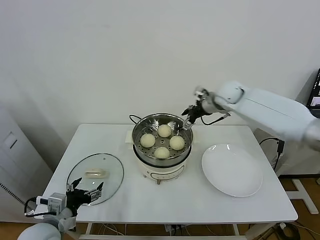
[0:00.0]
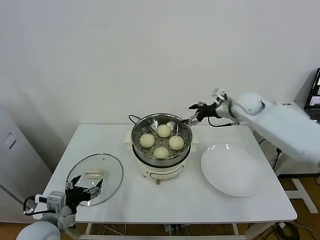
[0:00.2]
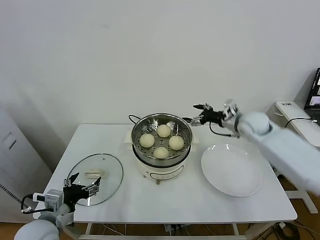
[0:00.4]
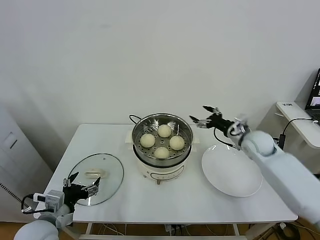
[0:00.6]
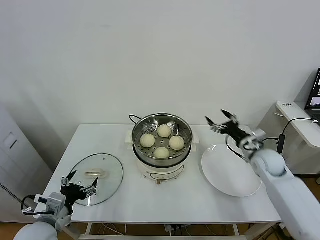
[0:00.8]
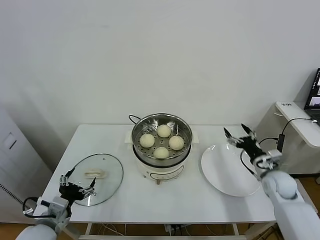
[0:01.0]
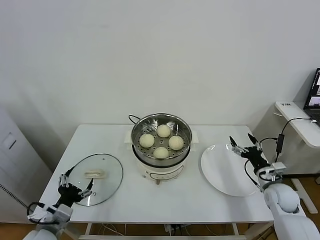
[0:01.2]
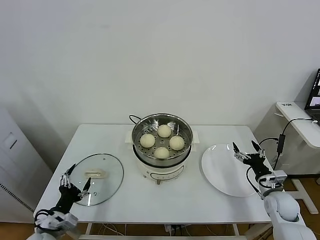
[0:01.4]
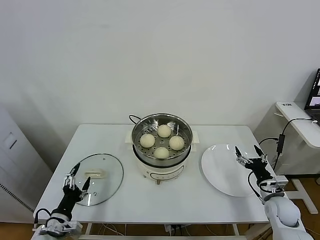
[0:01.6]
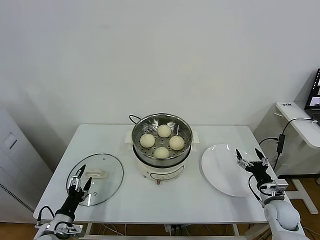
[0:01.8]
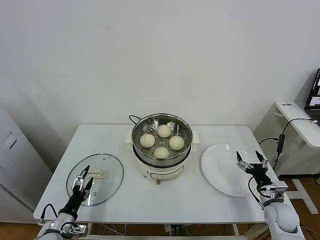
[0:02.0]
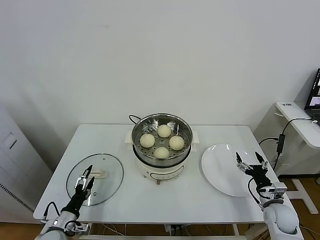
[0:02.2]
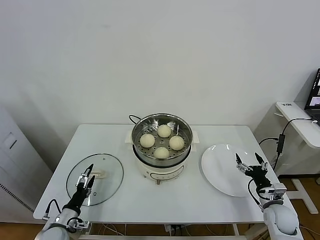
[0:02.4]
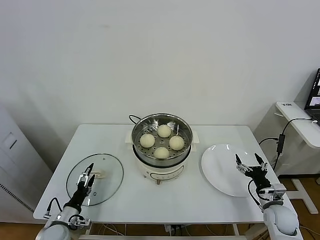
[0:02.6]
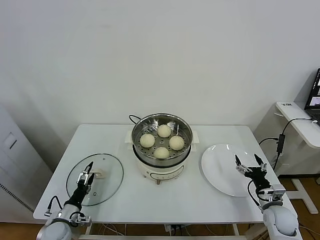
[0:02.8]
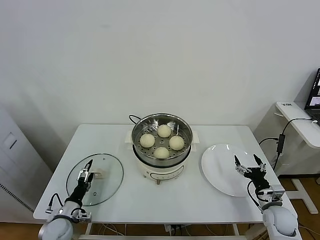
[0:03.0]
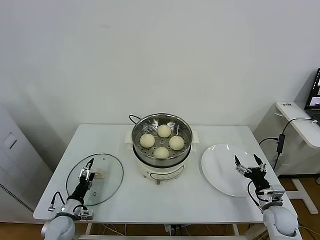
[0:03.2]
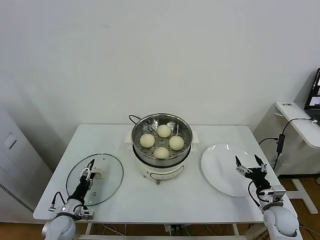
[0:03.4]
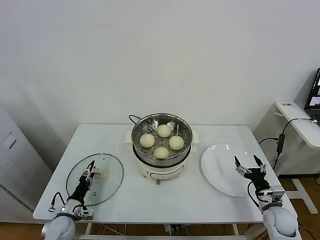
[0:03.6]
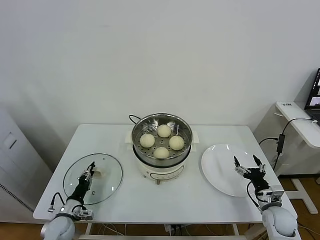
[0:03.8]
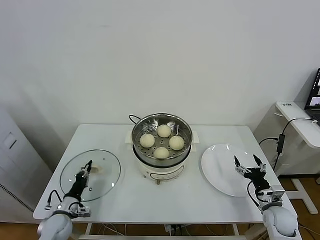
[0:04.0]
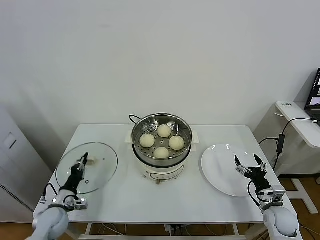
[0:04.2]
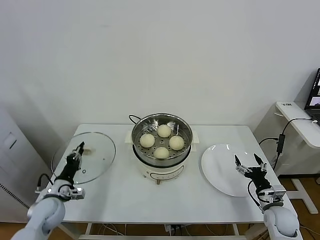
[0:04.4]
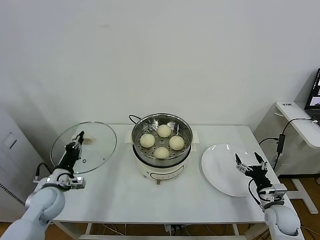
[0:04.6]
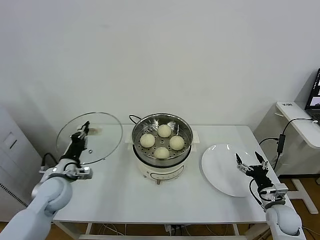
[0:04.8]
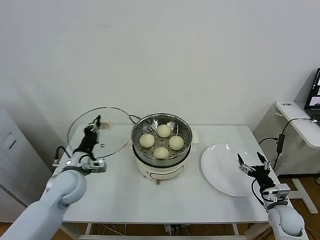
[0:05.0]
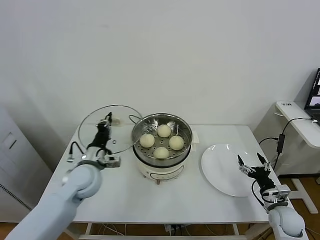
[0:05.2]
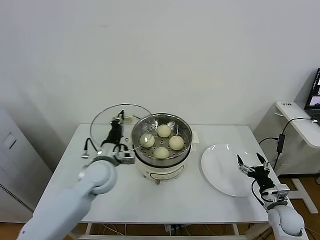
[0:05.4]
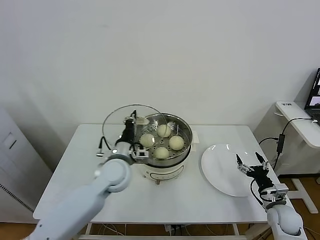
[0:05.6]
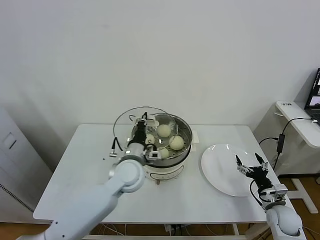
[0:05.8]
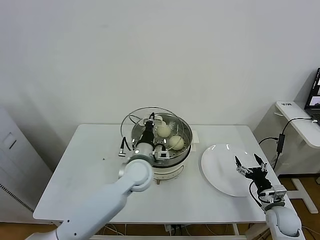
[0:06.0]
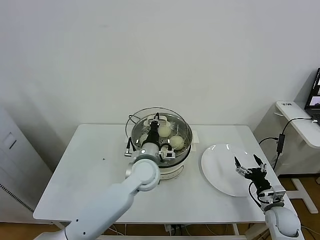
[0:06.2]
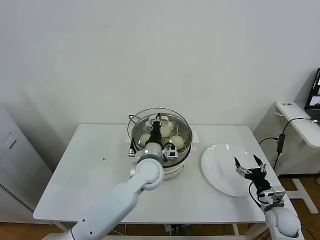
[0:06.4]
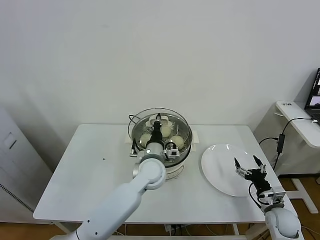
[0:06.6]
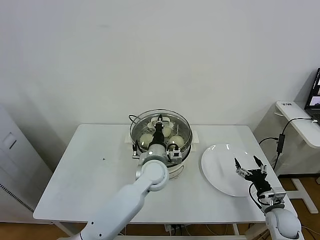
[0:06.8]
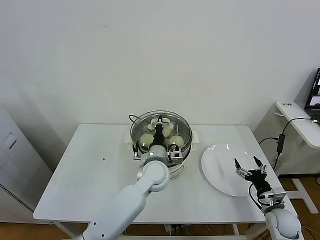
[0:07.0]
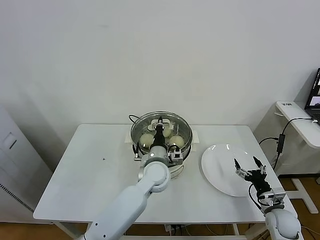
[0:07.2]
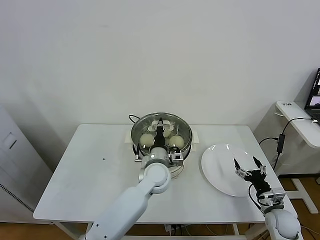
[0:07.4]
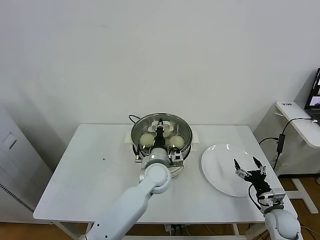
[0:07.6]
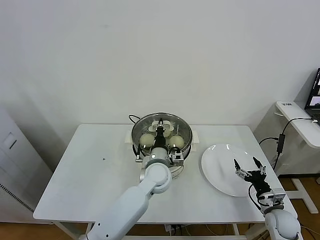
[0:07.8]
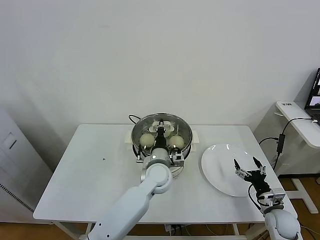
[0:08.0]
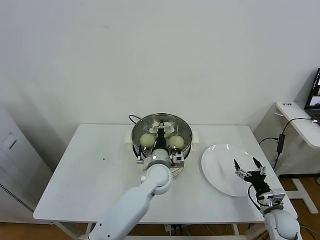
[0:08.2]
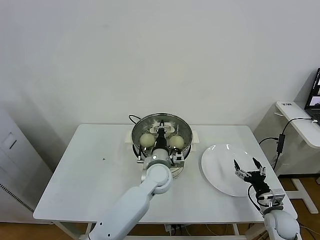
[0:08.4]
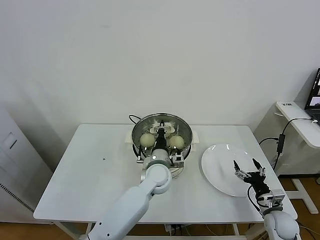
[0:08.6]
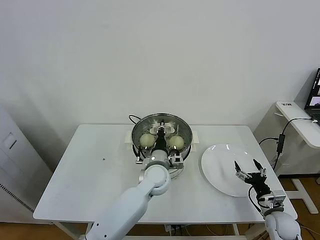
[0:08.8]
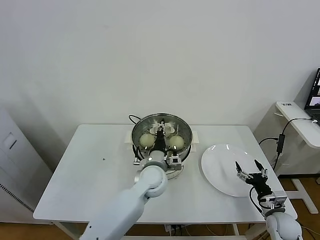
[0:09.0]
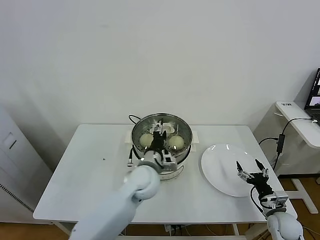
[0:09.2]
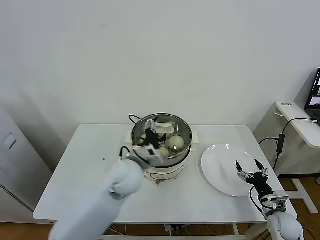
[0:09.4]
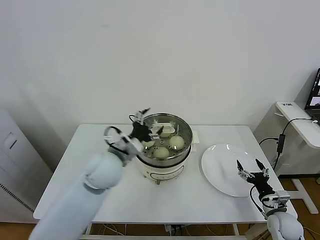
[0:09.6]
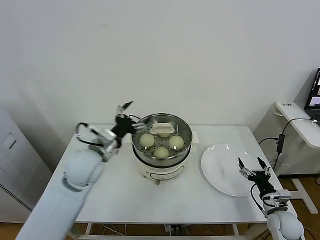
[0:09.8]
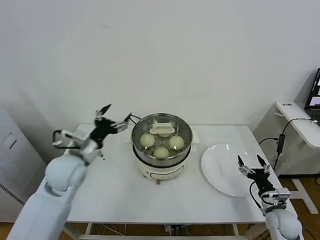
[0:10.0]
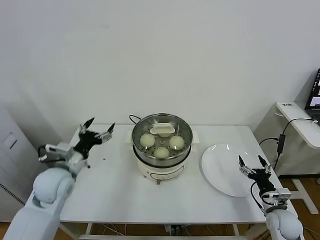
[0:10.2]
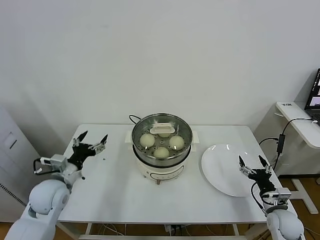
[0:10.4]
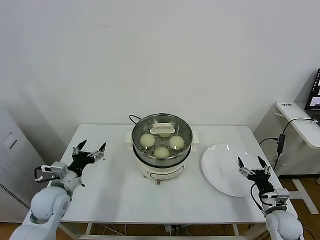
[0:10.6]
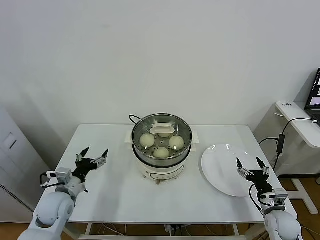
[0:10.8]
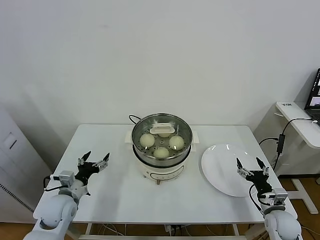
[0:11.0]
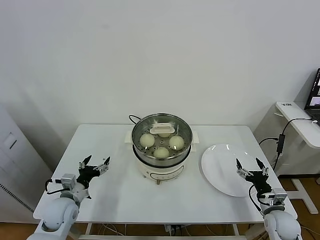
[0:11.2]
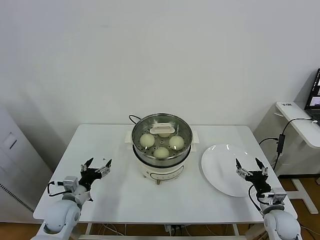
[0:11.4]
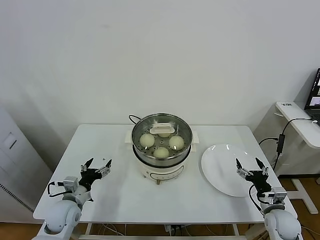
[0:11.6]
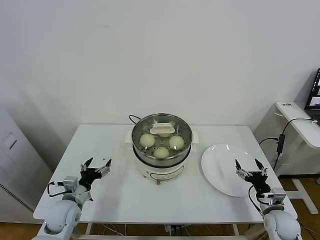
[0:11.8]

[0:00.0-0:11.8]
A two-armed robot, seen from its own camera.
Task of the whole recording: take steamed baozi put them in steamer.
Step, 0:00.0 to 0:04.0: Grasp the pot lid with left gripper.
Step, 0:04.2 to 0:09.4: Place the pot lid on the steamer with left gripper.
0:00.0 to 0:01.4: The right gripper moves downward, backward and to the right, approximately 40 cm. The left gripper travels downward by about 5 cm.
0:01.4 to 0:03.0: The left gripper is displaced downward and forward by some 15 cm. Meanwhile the right gripper shifts by some 5 cm.
0:03.0 to 0:04.4: The left gripper goes about 10 cm upward, and closes up.
0:04.4 to 0:06.0: The left gripper shifts roughly 30 cm to the right and upward.
0:06.0 to 0:07.4: The left gripper heads to the right, covering approximately 5 cm.
0:07.4 to 0:08.8: There are only small adjustments of the grippers.
0:08.8 to 0:10.4: The left gripper travels to the left by about 30 cm, and opens its fingers.
0:10.4 to 0:11.8: The left gripper shifts about 10 cm downward.

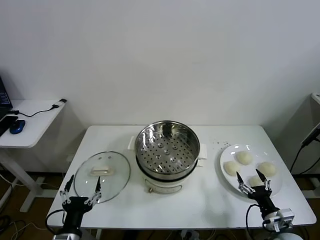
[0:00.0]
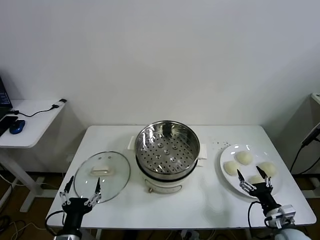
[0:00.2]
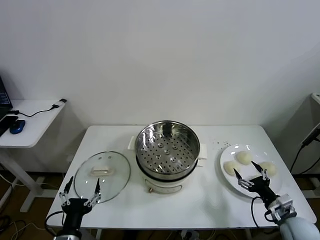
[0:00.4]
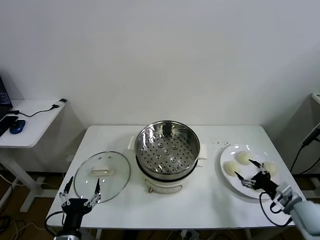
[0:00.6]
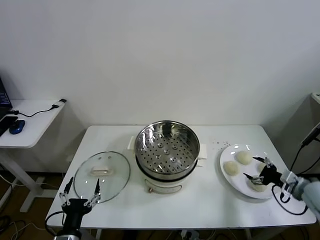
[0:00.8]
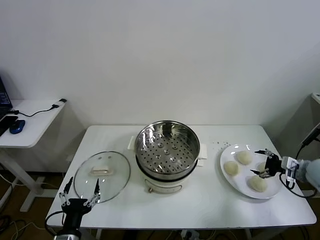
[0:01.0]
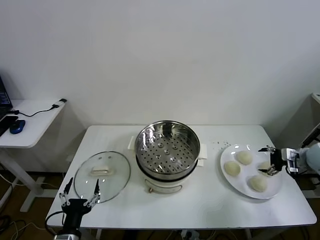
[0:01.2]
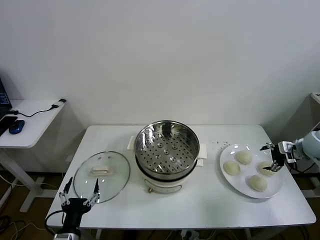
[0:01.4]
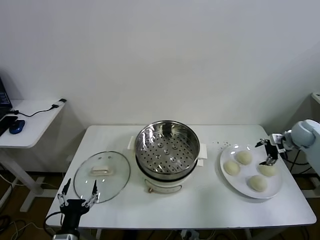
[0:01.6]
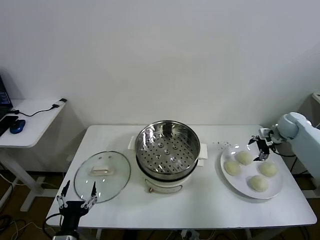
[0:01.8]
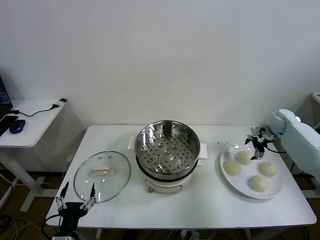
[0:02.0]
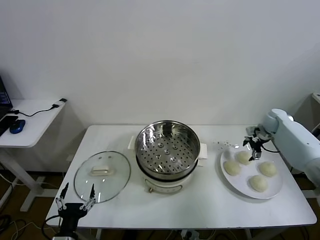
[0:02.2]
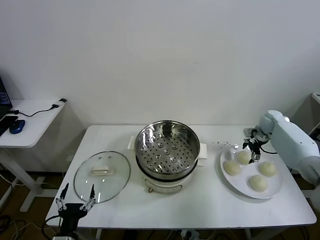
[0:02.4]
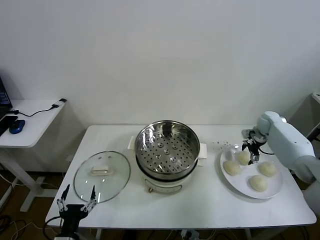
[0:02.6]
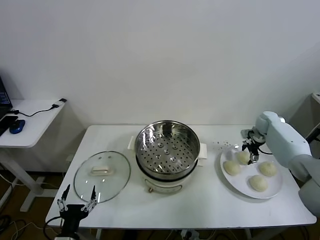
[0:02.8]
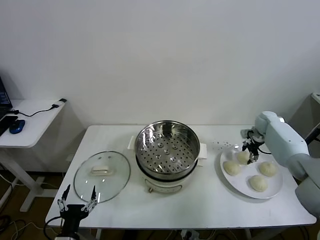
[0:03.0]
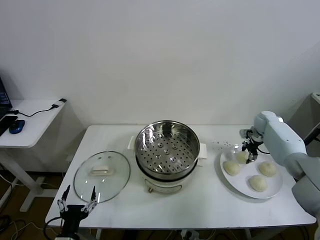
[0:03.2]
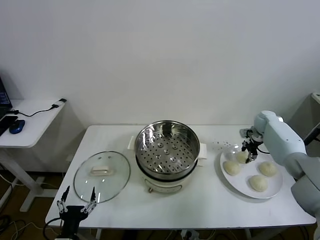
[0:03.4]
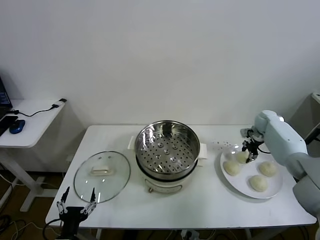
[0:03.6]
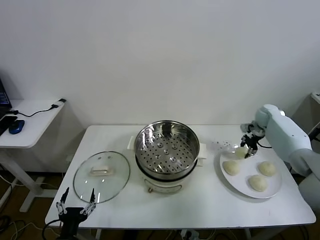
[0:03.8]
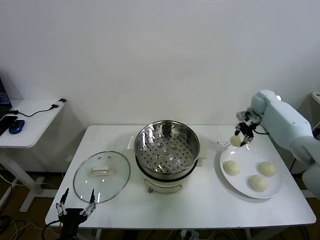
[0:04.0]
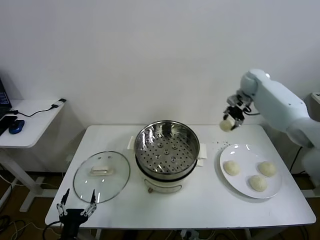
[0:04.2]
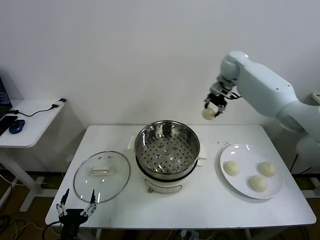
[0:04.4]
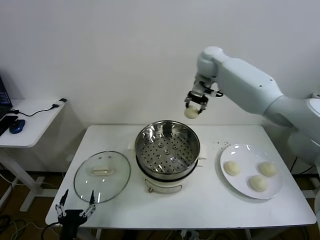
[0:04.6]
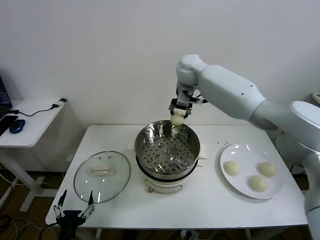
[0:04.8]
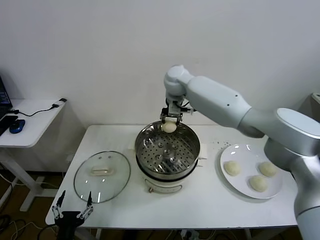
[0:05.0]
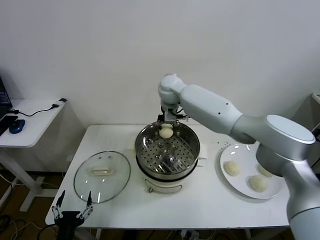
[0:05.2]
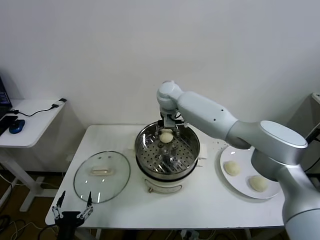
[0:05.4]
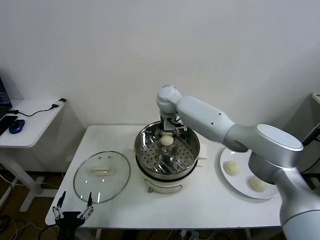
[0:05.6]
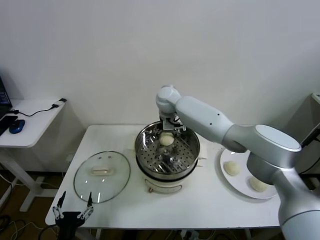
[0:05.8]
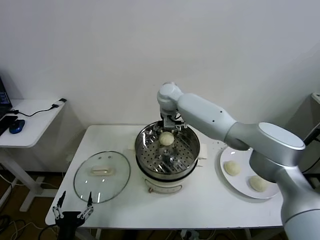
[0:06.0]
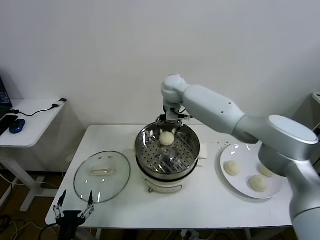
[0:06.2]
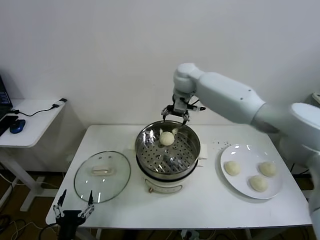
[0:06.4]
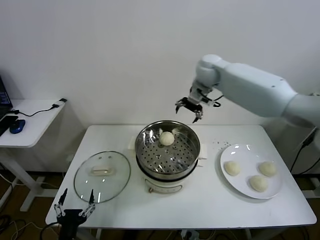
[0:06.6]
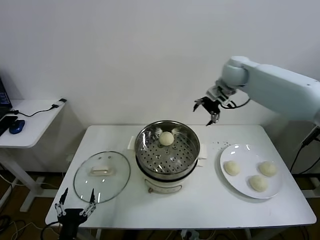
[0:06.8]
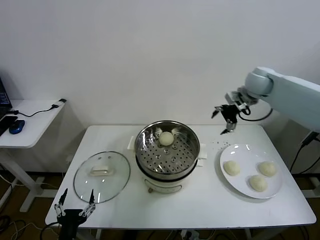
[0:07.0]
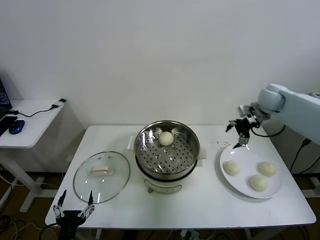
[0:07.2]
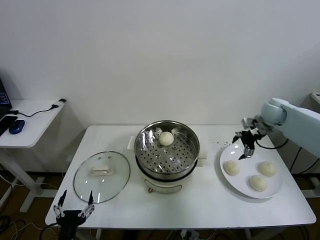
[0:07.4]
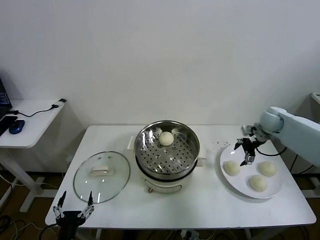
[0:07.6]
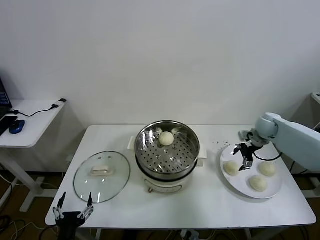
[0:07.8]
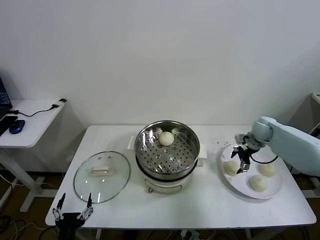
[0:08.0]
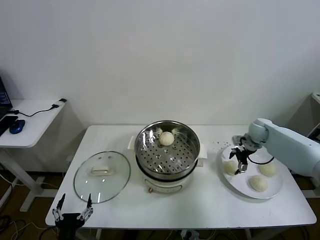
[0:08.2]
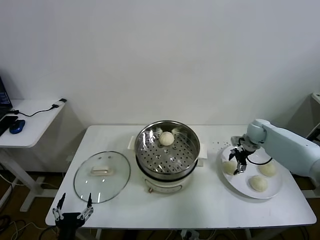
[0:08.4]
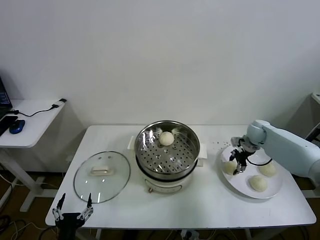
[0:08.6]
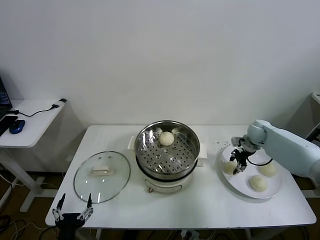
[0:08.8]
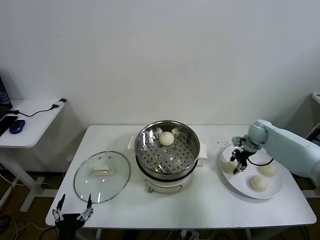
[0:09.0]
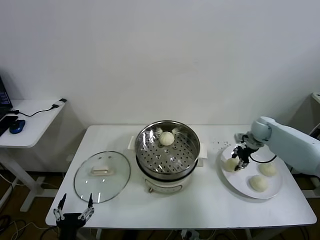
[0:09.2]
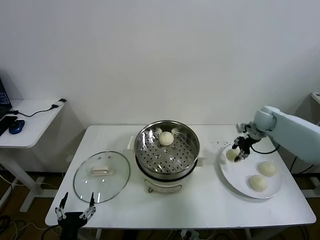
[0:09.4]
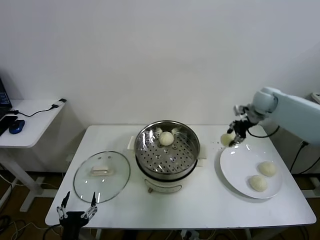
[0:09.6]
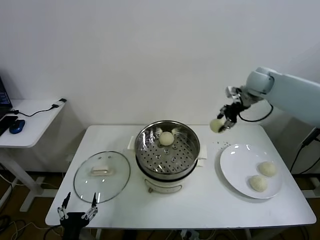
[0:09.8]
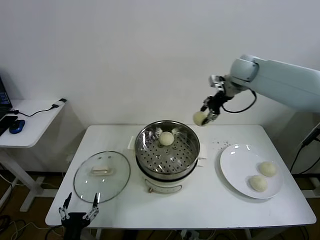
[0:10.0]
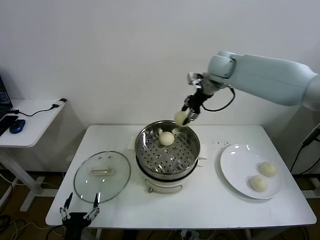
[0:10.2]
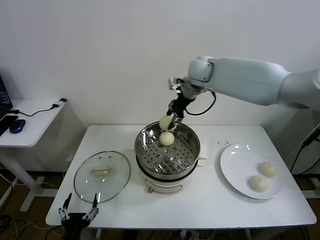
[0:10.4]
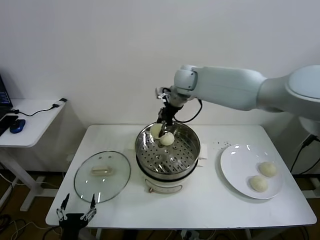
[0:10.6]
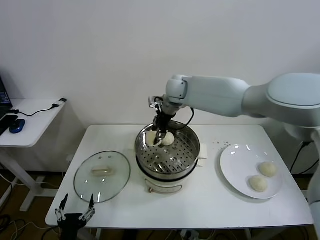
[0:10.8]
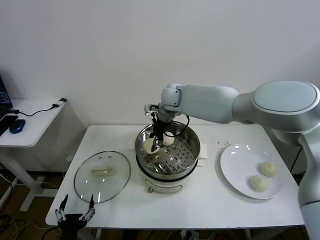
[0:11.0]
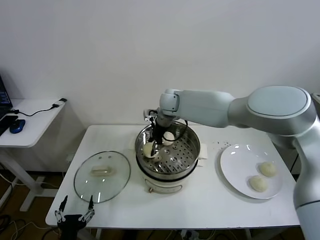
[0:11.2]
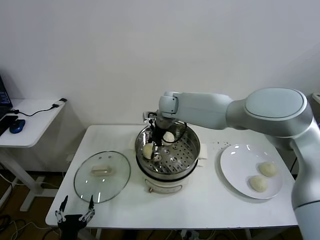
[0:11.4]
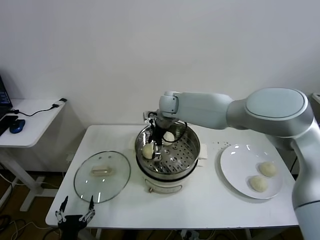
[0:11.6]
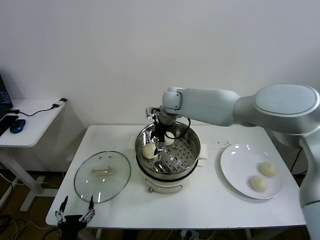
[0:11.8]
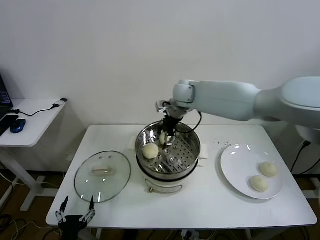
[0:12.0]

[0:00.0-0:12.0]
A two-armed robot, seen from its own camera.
Task of the whole recording: take steamed baozi put them in steamer.
Step, 0:00.0 to 0:03.2: Grasp the baozi in the plate with right gripper.
Step, 0:03.4 to 0:06.0: Place the baozi on the steamer with right gripper.
Step, 0:06.2 to 0:08.8: Grasp the baozi in the plate with right gripper.
Step, 0:09.0 to 0:11.8: Place the baozi on the steamer with right gripper.
0:01.6 to 0:03.0: The right gripper goes roughly 5 cm forward, and closes up.
0:03.0 to 0:04.4: The right gripper travels to the left and upward by approximately 40 cm.
0:04.4 to 0:06.0: The right gripper goes some 15 cm to the left and downward, and opens up.
0:06.0 to 0:07.6: The right gripper moves to the right, about 40 cm.
0:07.6 to 0:09.0: The right gripper closes its fingers.
0:09.0 to 0:10.4: The right gripper heads to the left and upward, covering approximately 40 cm.
0:10.4 to 0:12.0: The right gripper travels downward and back again, about 10 cm each way, and opens its fingers.
